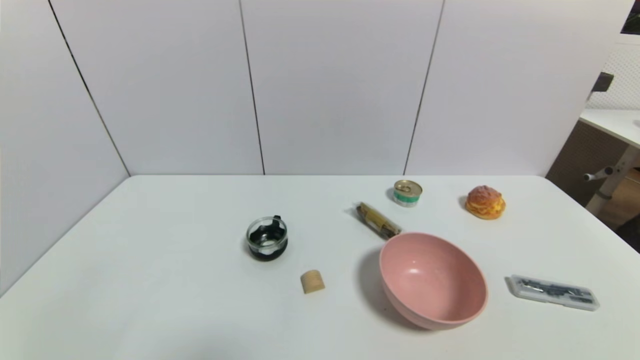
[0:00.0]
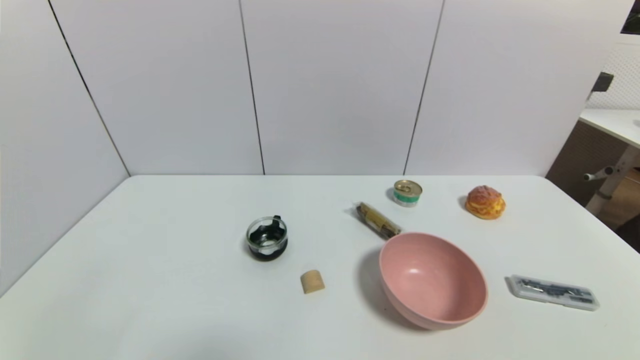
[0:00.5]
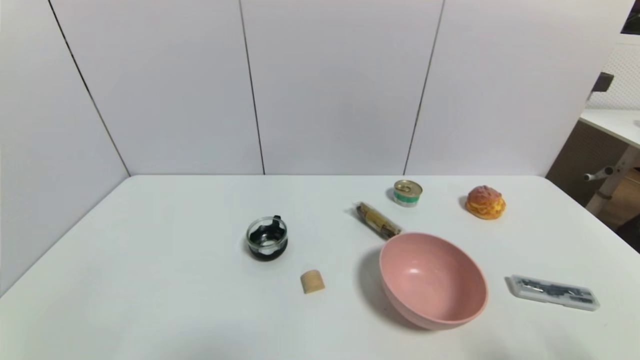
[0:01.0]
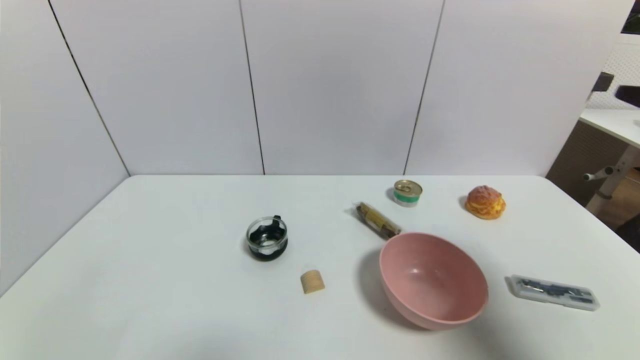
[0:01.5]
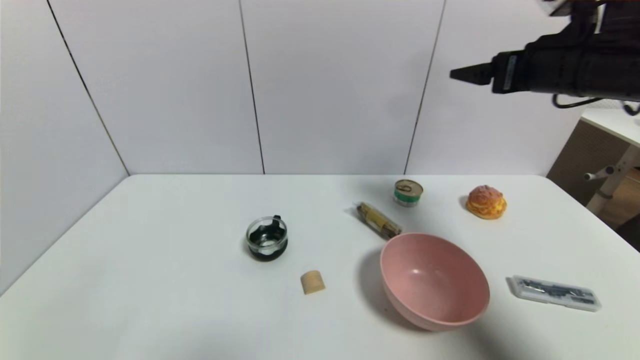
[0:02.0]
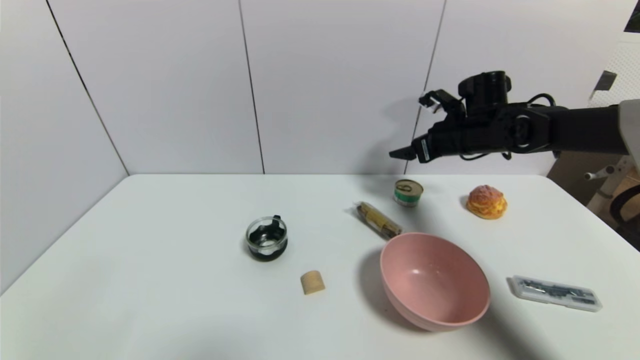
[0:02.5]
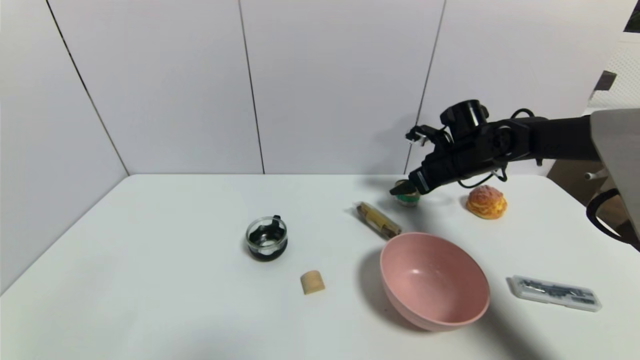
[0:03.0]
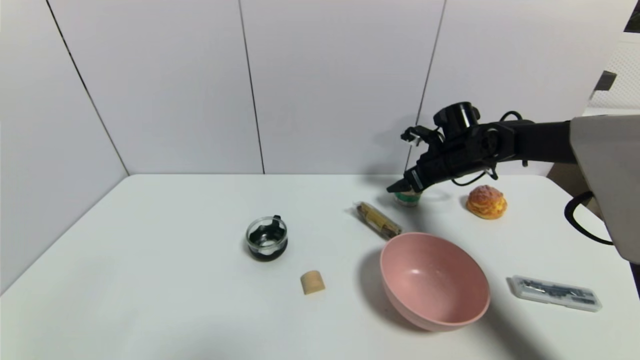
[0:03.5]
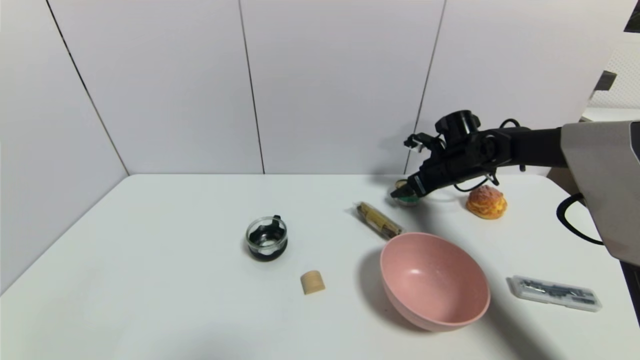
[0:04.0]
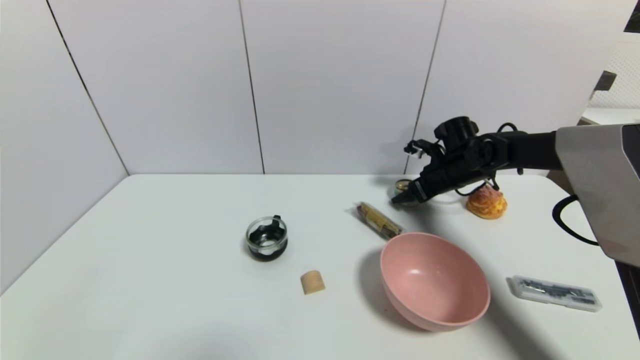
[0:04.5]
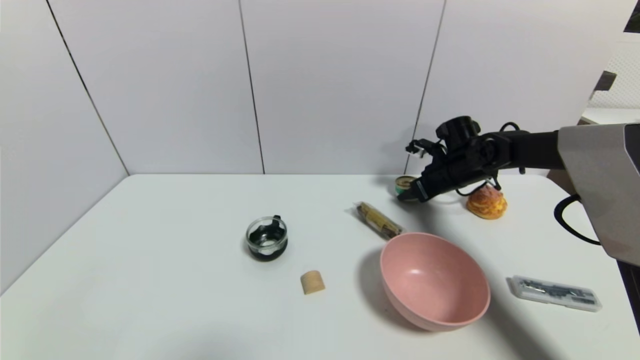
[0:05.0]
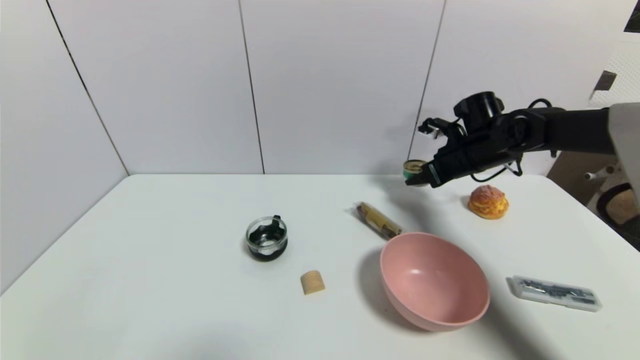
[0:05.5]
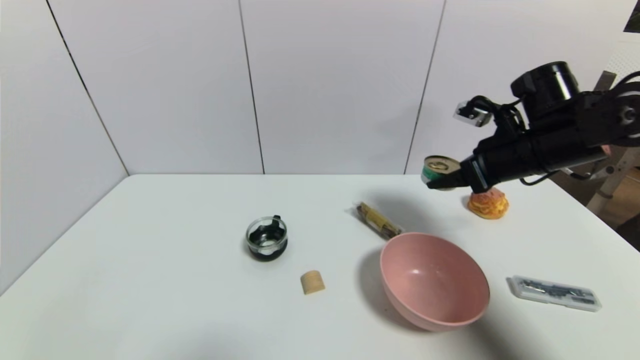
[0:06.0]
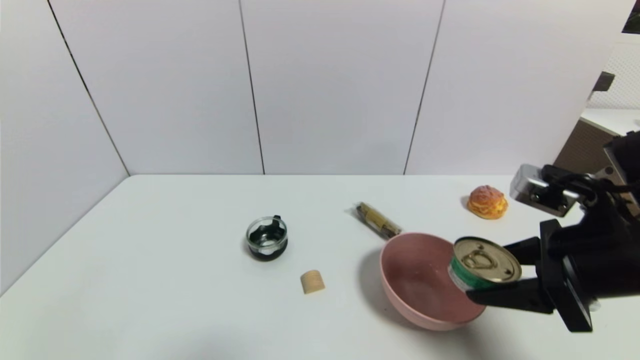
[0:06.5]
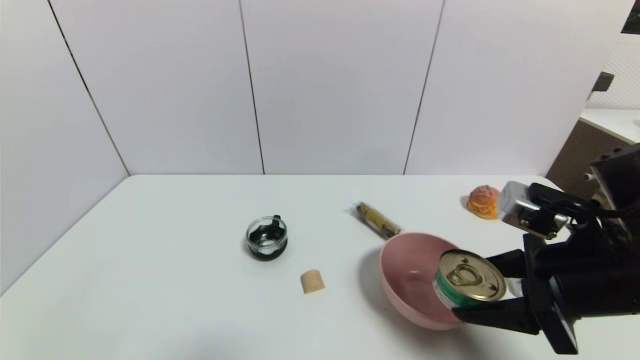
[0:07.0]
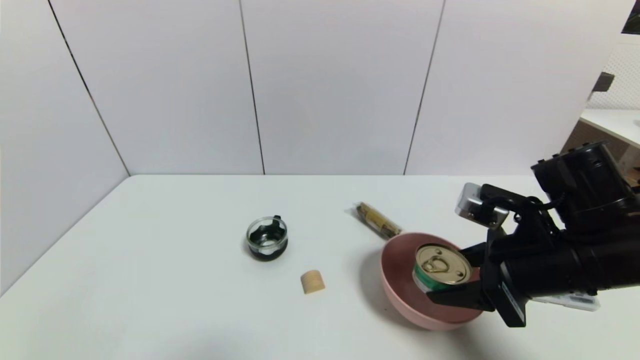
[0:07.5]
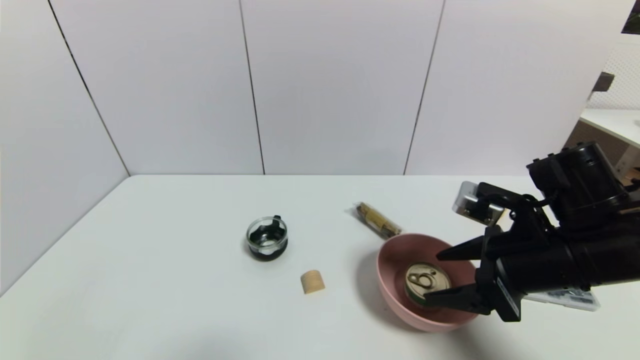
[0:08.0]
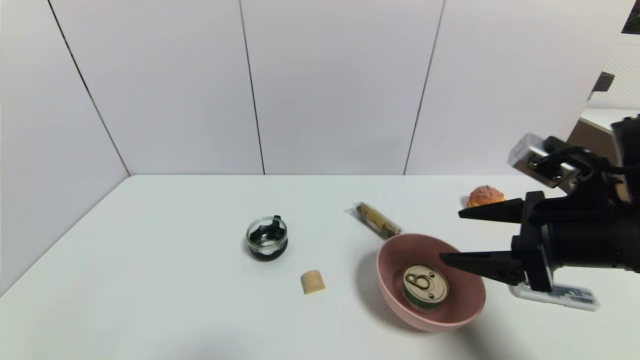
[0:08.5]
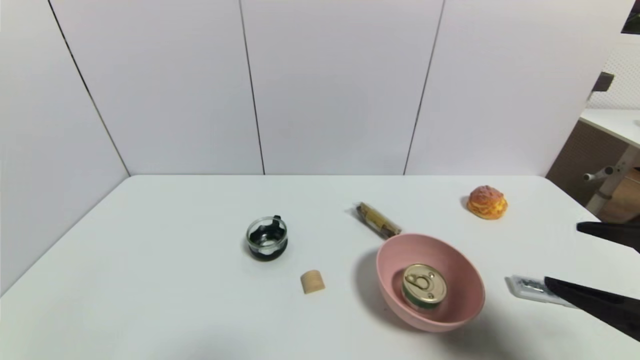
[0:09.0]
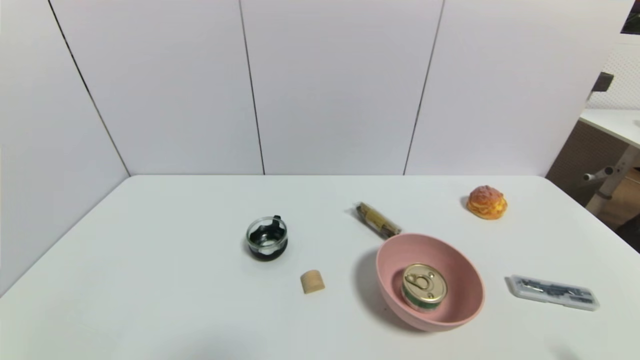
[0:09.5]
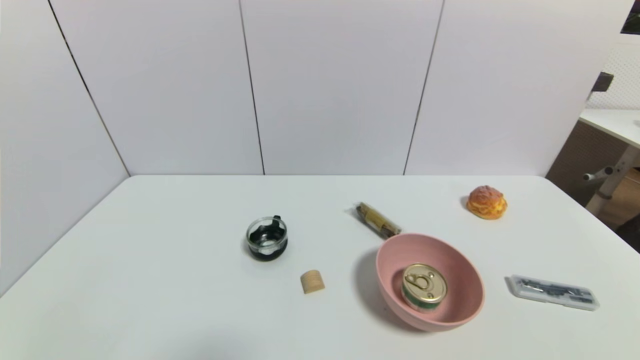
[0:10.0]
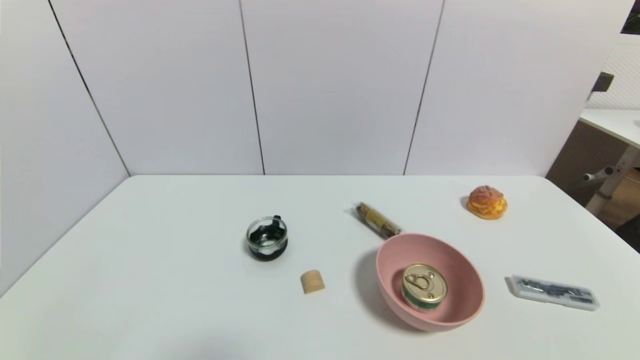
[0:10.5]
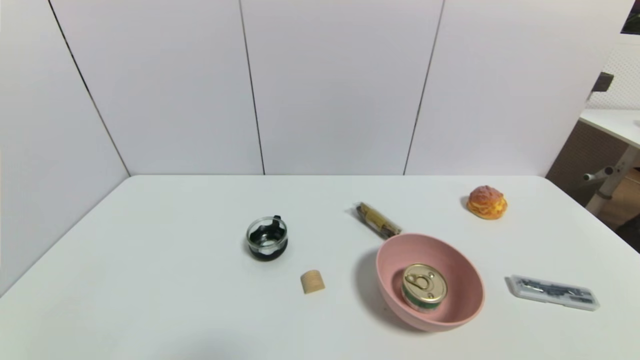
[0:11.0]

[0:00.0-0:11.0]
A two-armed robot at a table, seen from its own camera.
Task of the whole recording: use a gripper to pick the target object and place on the pink bowl.
Step, 0:00.0 to 0:04.5: Grasp the tin with the right gripper.
Step, 0:05.0 to 0:07.5: Place the tin on the pink bowl with the right gripper.
0:00.0 to 0:02.0: The right gripper travels forward and upward by roughly 40 cm.
0:02.0 to 0:03.5: The right gripper moves downward and forward, roughly 20 cm.
0:03.5 to 0:05.5: The right gripper closes up.
0:05.5 to 0:07.5: The right gripper heads backward, covering some 25 cm.
0:07.5 to 0:09.0: The right gripper moves backward and to the right, roughly 15 cm, and opens its fingers.
0:09.0 to 0:11.0: The right gripper travels downward and backward by about 20 cm.
